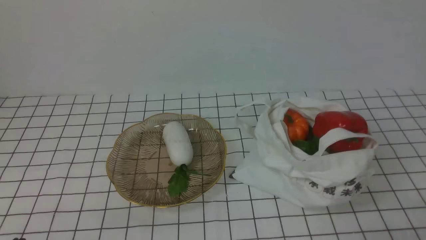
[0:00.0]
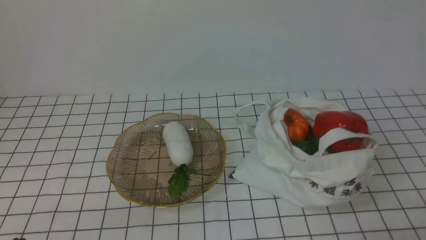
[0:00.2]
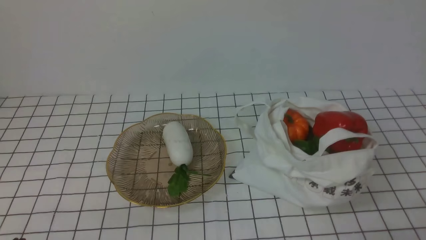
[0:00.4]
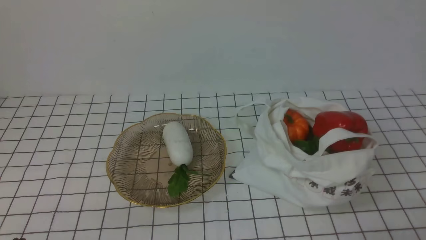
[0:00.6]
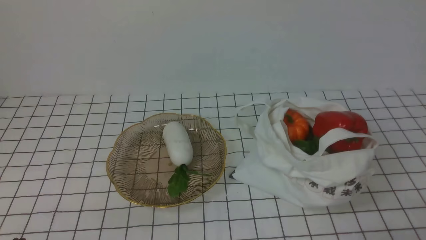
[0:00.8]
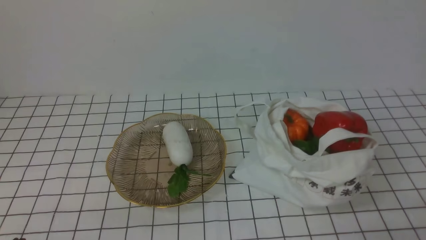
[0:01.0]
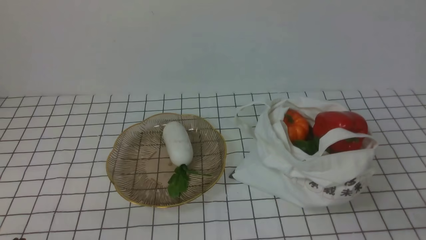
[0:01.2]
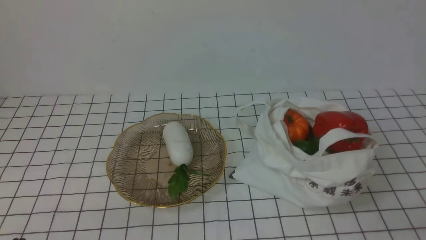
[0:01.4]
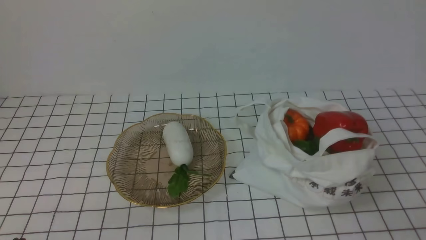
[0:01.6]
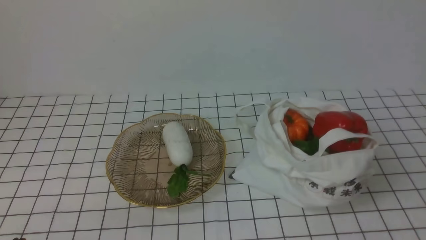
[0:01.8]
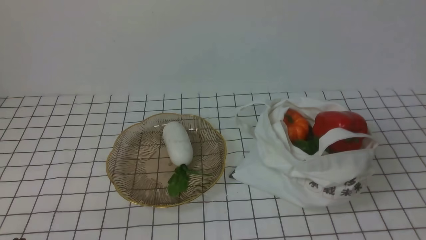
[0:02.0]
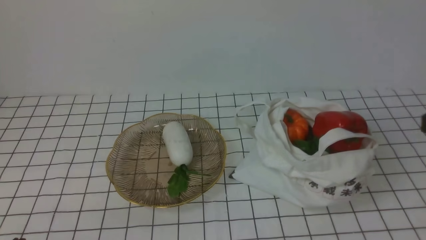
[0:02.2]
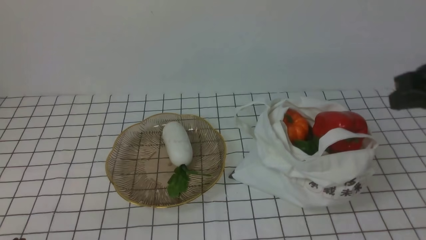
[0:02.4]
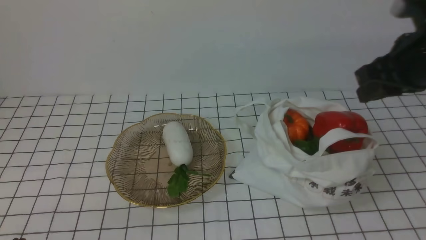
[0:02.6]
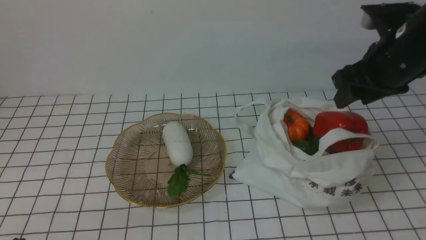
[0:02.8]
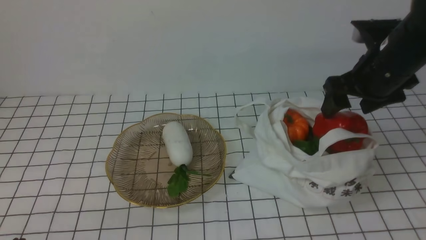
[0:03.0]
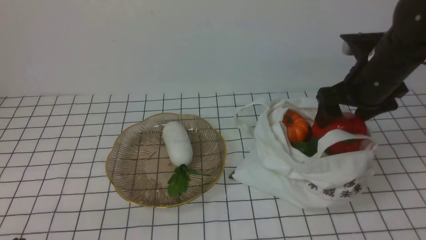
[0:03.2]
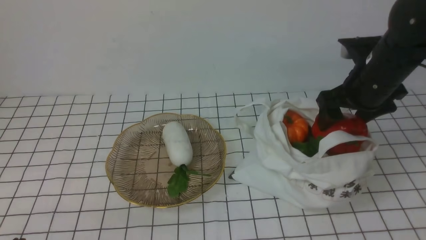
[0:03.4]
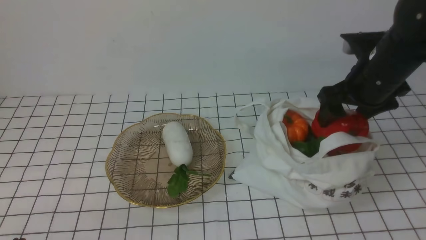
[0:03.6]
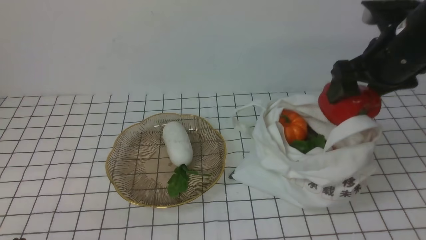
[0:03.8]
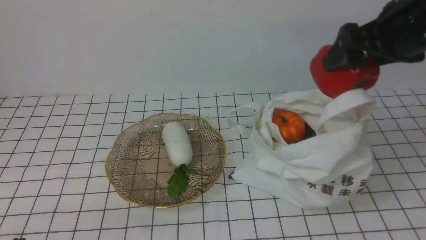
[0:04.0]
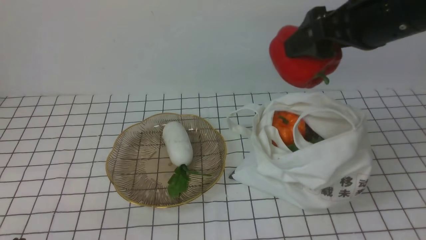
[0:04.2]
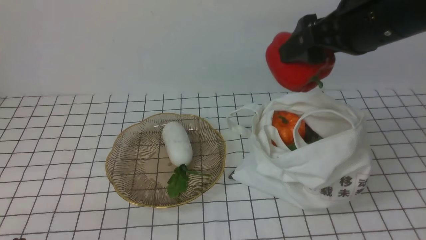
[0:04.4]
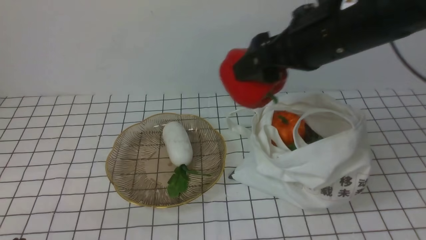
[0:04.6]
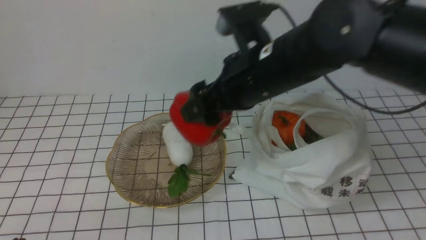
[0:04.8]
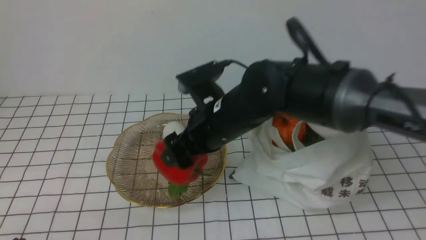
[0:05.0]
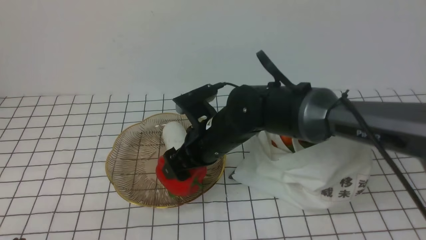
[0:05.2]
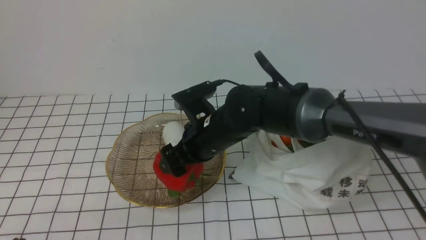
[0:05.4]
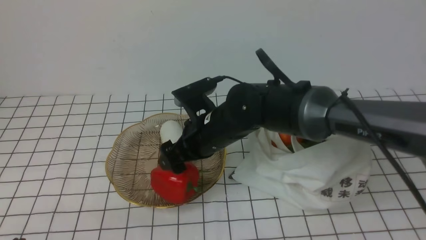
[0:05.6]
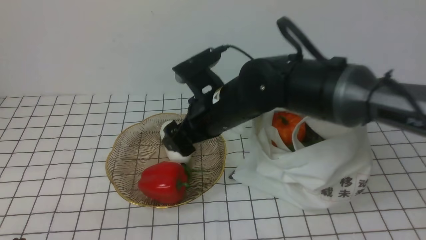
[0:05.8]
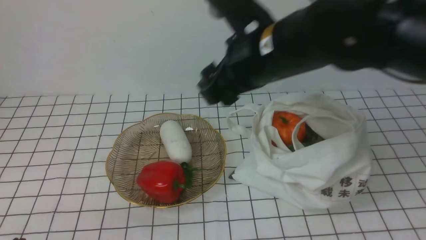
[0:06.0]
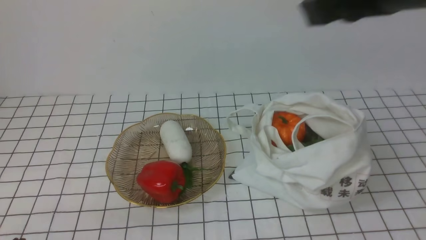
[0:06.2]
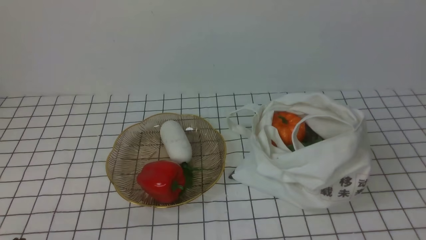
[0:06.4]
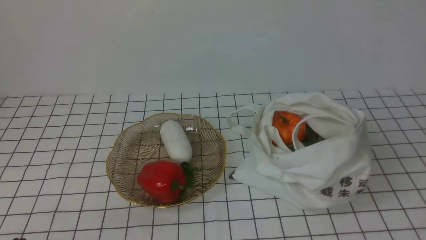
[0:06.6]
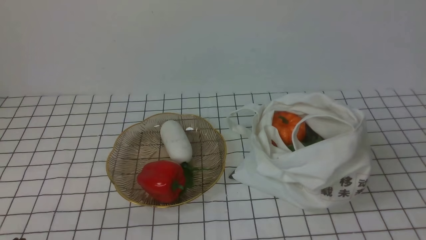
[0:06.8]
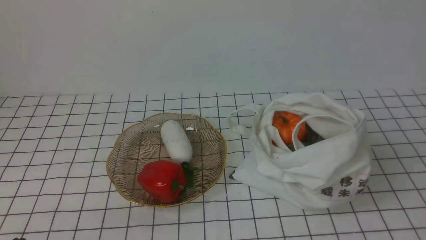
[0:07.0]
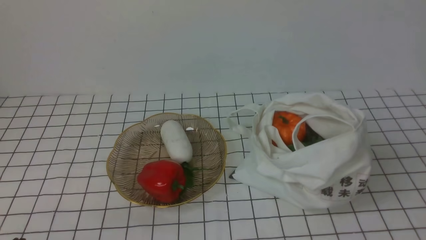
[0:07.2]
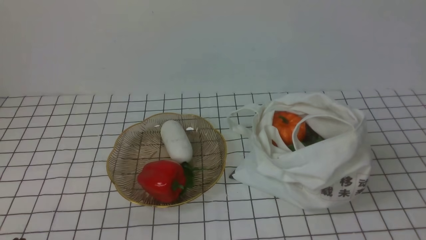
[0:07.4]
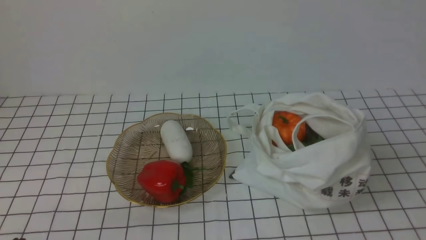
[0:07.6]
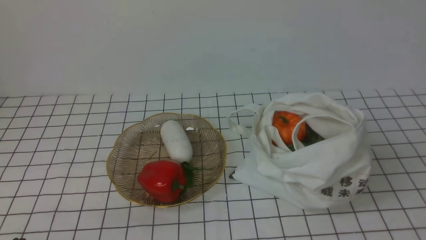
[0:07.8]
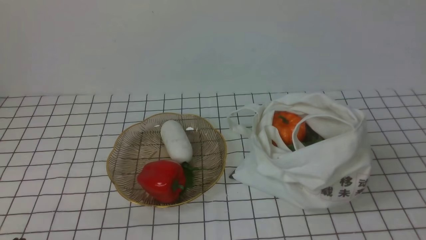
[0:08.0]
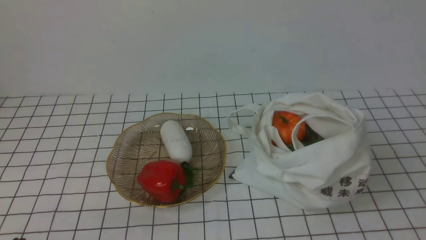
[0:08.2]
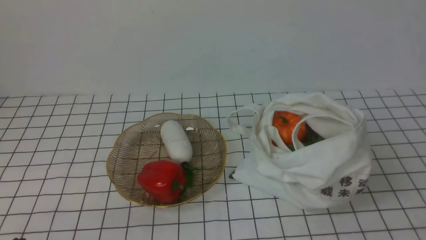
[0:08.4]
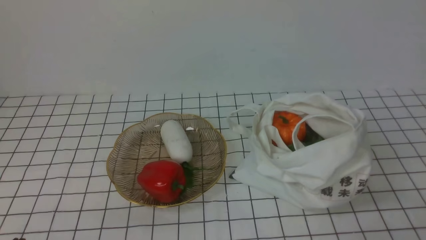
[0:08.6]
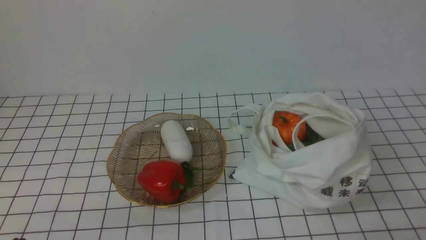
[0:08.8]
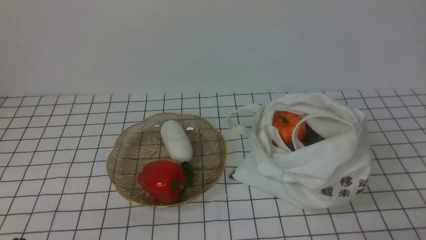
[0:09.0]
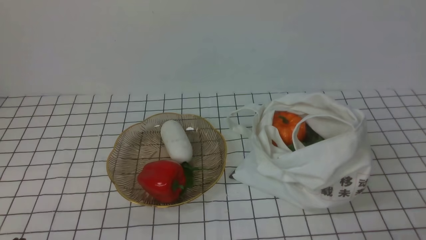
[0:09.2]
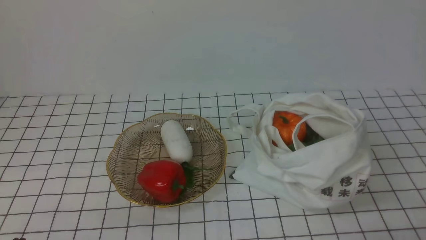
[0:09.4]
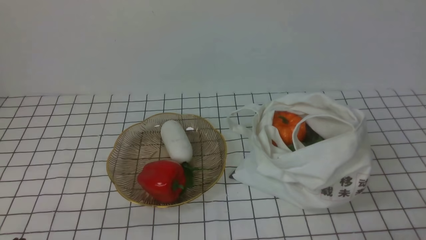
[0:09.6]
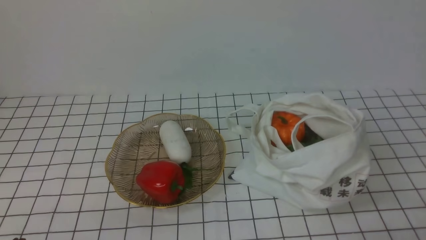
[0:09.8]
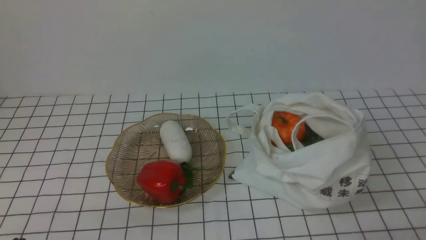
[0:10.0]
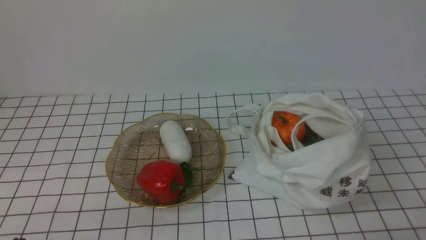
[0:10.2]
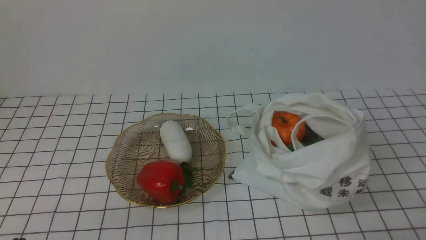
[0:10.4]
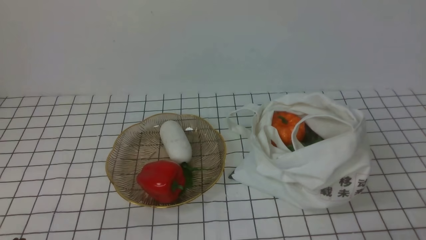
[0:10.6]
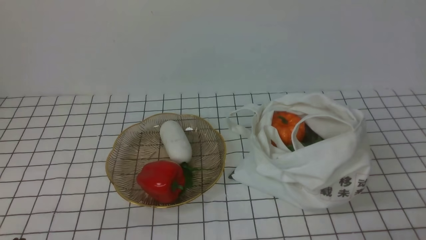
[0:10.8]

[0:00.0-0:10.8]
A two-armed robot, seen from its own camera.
Task of the whole recording: take vegetables from bag on white checkered tablecloth place on plate.
Step, 0:00.0 to 0:03.4: Grasp the bell pepper with right gripper.
Step, 0:03.6 to 0:05.8: Place the bell pepper on the plate with right gripper.
0:01.6 to 0:03.0: The right gripper moves forward, roughly 30 cm, and opens its fingers.
0:03.0 to 0:04.6: The right gripper is displaced to the left, upward and backward by about 15 cm.
0:04.6 to 0:06.2: The right gripper shifts roughly 15 cm upward, backward and to the right, and closes up.
0:06.2 to 0:07.8: The right gripper travels backward, downward and to the right by about 25 cm.
0:09.2 to 0:10.8: Both grippers stay put.

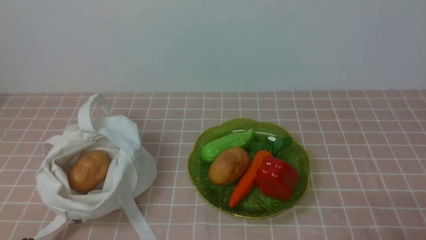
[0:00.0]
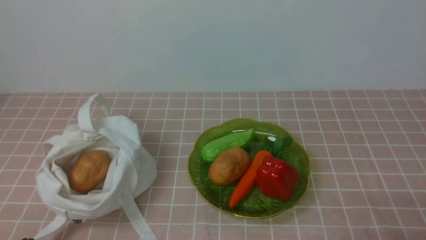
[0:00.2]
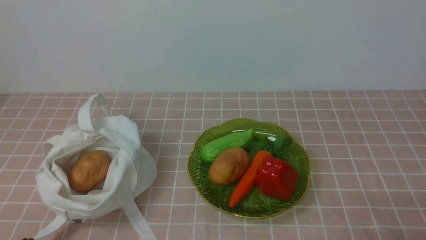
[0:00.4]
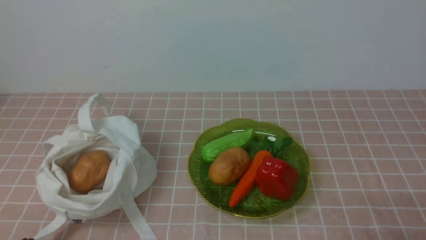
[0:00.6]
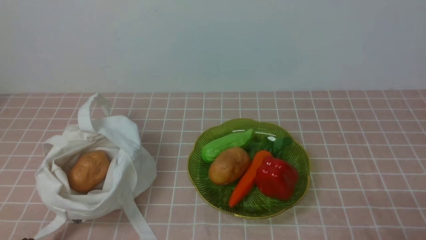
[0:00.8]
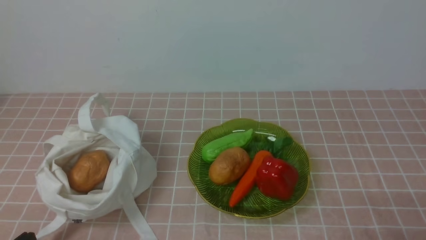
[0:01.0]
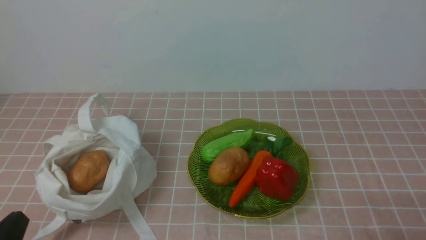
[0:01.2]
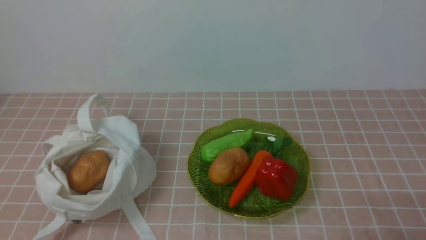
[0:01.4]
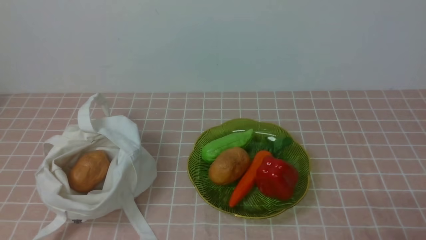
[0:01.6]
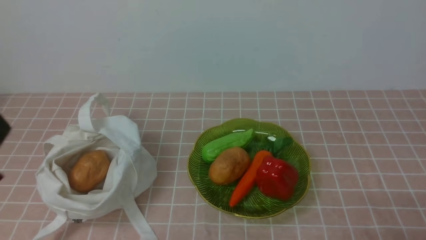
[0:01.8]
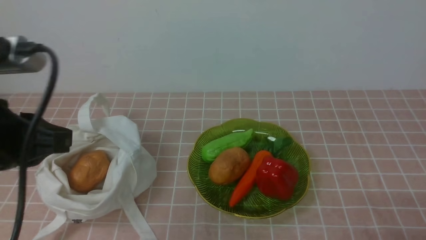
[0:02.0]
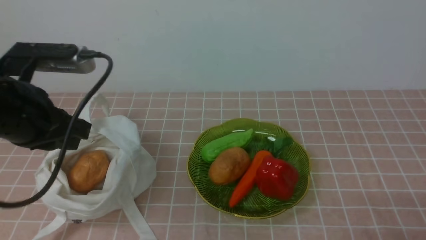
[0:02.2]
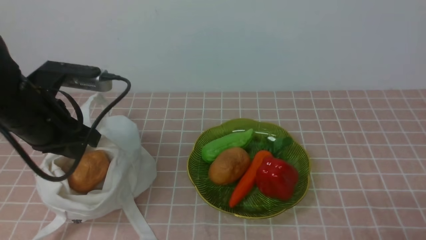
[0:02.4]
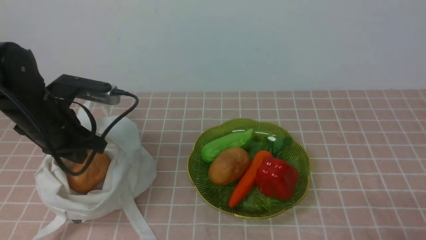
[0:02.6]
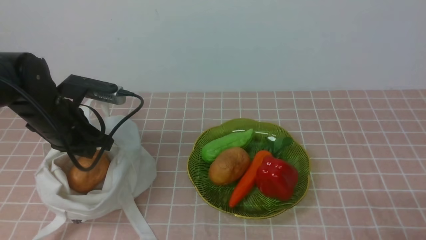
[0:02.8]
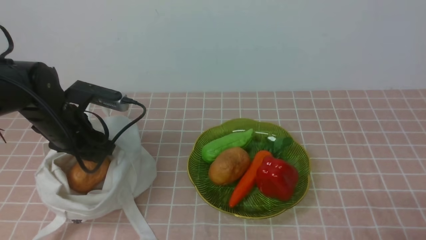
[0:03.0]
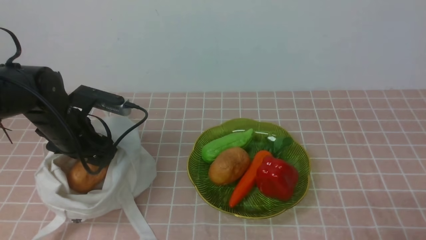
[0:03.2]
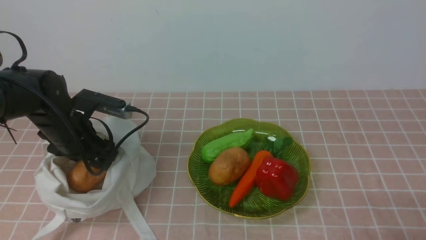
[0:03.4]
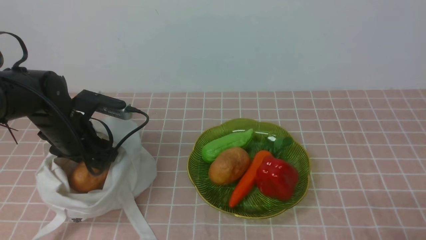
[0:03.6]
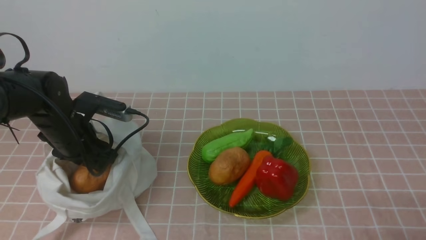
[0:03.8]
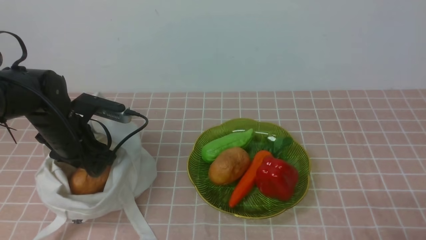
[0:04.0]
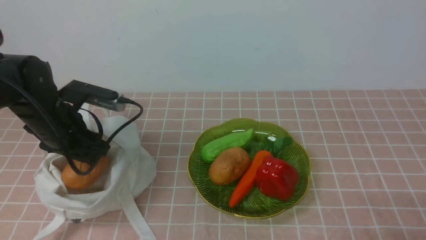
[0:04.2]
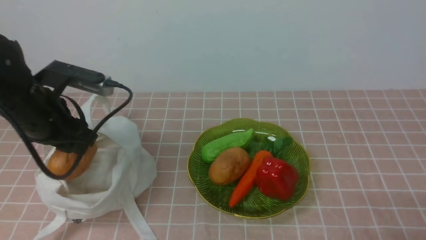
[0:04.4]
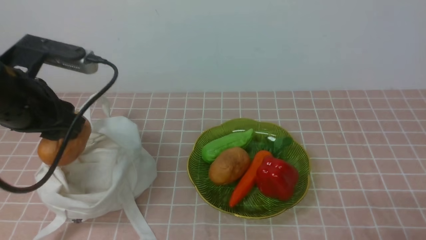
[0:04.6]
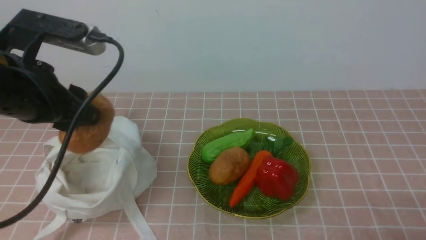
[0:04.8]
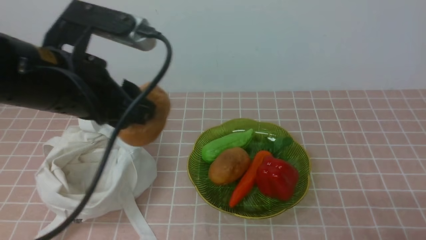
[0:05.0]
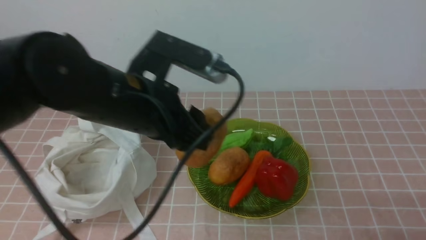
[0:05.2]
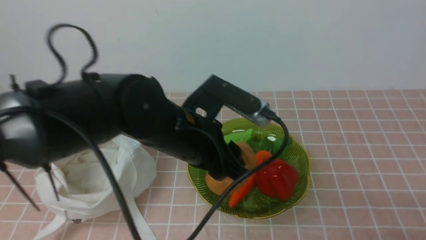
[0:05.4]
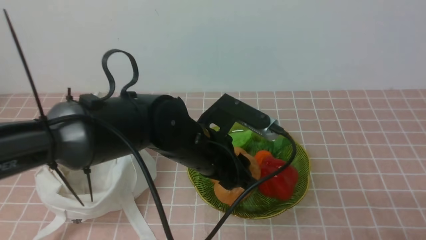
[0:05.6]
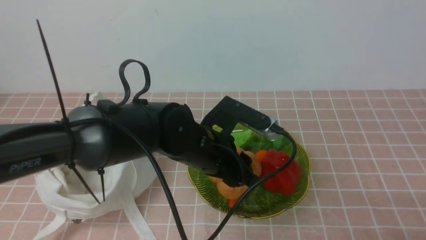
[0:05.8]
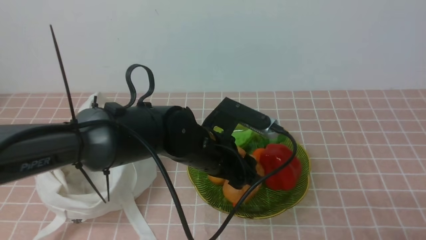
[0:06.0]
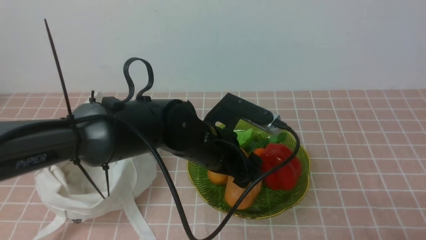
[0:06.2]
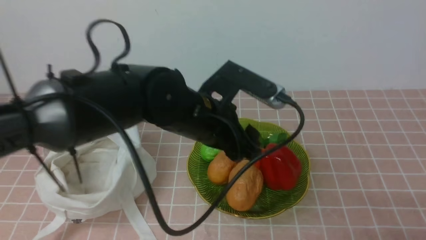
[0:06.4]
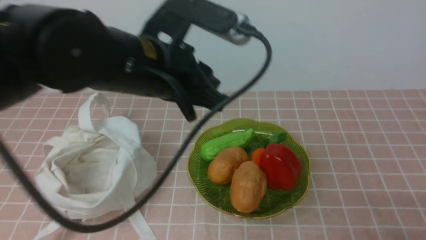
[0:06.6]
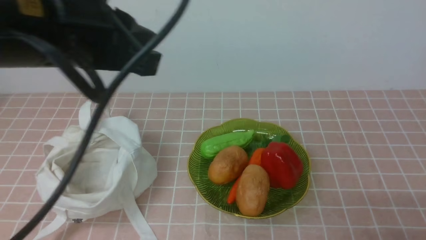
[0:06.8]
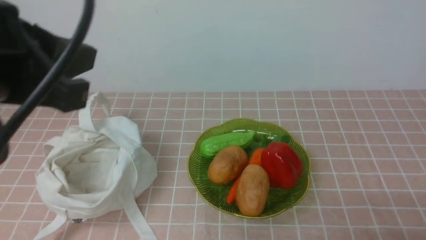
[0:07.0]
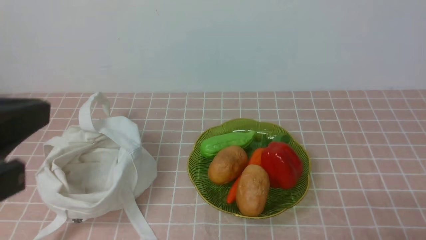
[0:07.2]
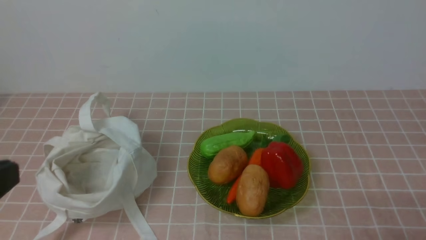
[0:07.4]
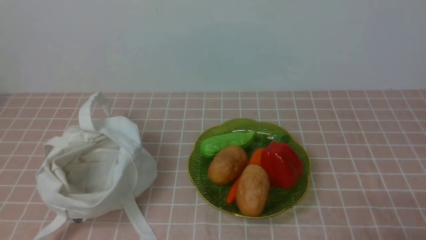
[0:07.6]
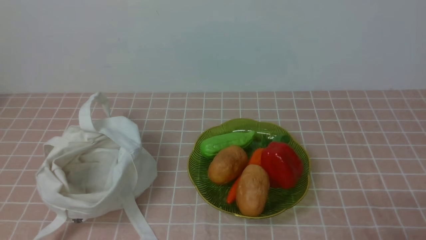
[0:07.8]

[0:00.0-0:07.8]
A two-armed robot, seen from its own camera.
Task of the whole recording: take vegetables from bag on pink coffee tablecloth place on plate.
Step, 0:00.0 to 0:03.8: Grasp the potato with left gripper.
Step, 0:04.0 to 0:06.4: Place the potato on the plate with left gripper.
0:01.6 to 0:03.2: The left gripper shifts about 30 cm forward, and opens its fingers.
0:03.2 to 0:04.6: The left gripper heads upward and backward, covering about 15 cm.
0:04.6 to 0:06.2: The left gripper shifts some 20 cm to the right and downward.
0:06.2 to 0:07.8: The left gripper travels backward and to the left by about 35 cm, and closes.
